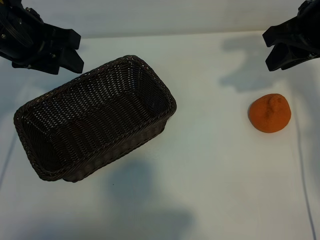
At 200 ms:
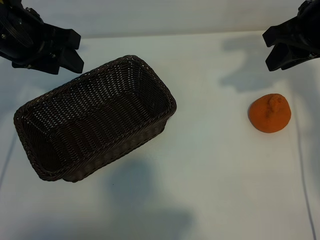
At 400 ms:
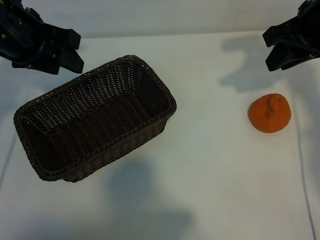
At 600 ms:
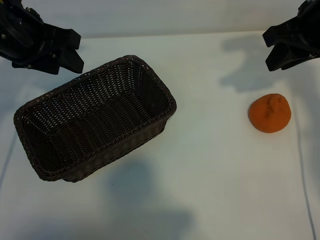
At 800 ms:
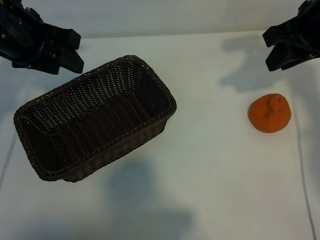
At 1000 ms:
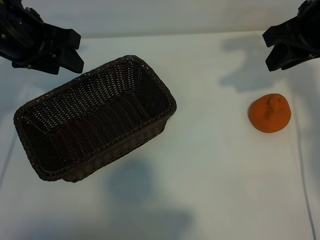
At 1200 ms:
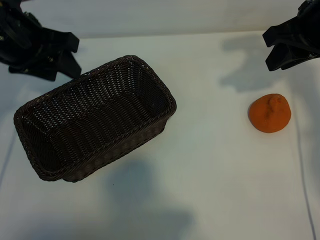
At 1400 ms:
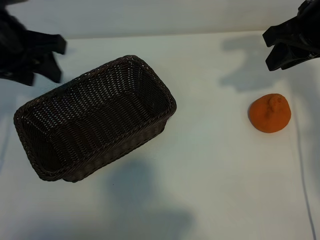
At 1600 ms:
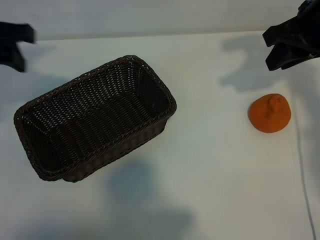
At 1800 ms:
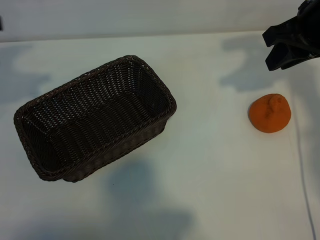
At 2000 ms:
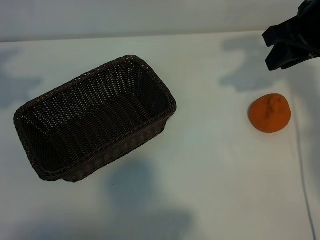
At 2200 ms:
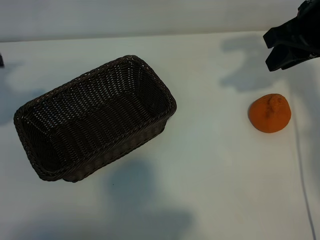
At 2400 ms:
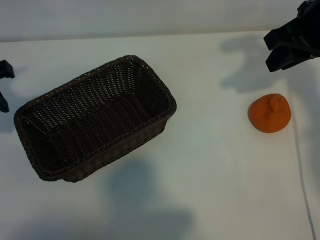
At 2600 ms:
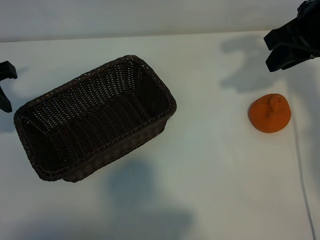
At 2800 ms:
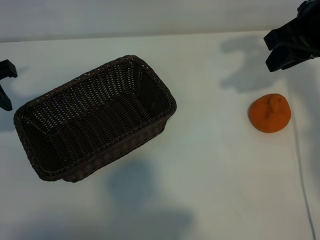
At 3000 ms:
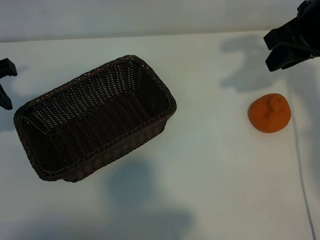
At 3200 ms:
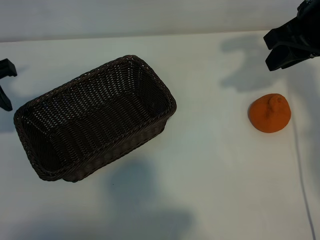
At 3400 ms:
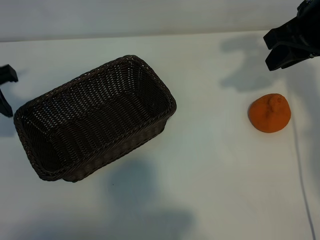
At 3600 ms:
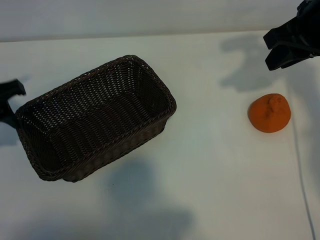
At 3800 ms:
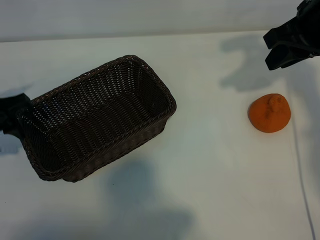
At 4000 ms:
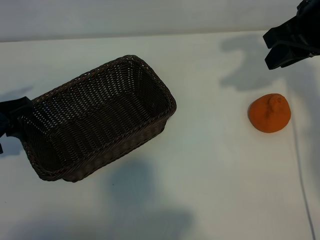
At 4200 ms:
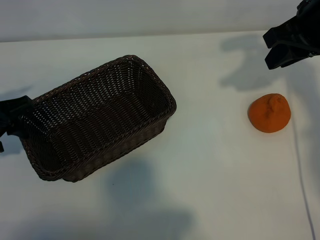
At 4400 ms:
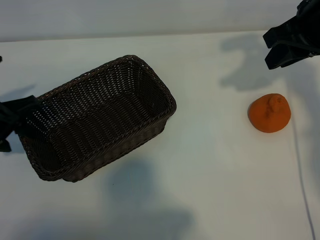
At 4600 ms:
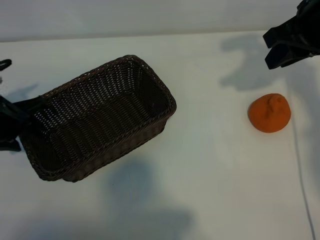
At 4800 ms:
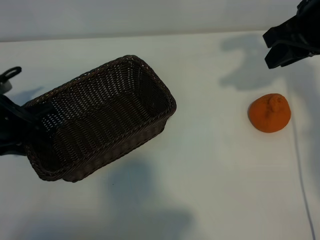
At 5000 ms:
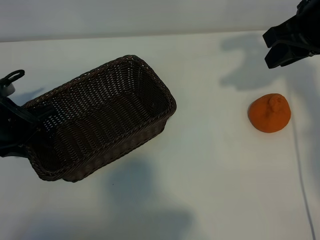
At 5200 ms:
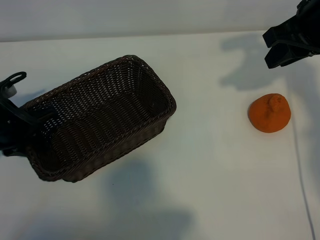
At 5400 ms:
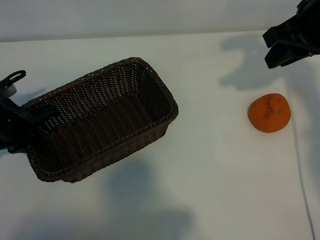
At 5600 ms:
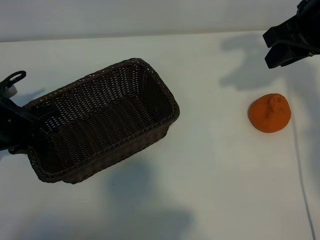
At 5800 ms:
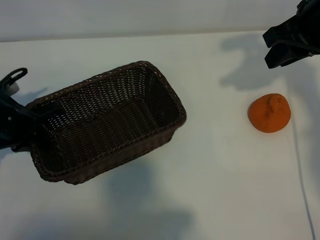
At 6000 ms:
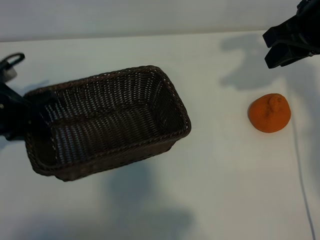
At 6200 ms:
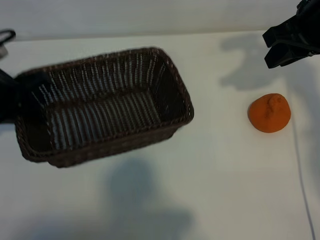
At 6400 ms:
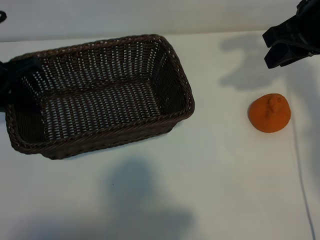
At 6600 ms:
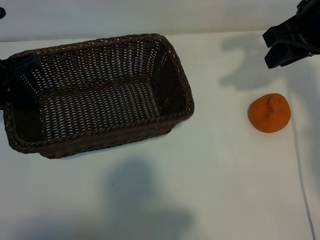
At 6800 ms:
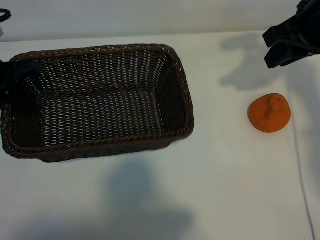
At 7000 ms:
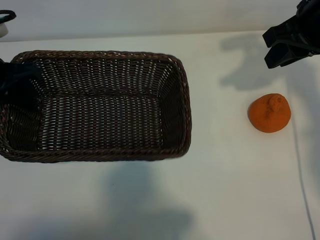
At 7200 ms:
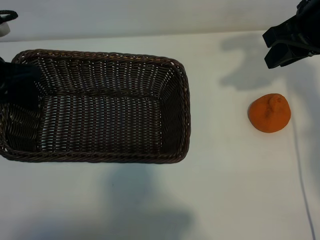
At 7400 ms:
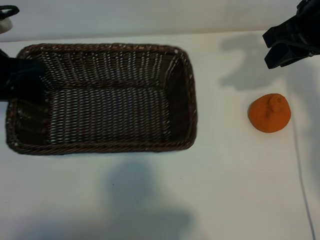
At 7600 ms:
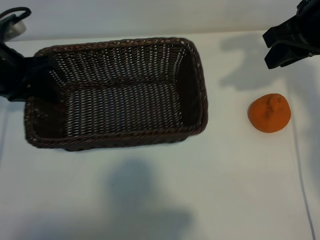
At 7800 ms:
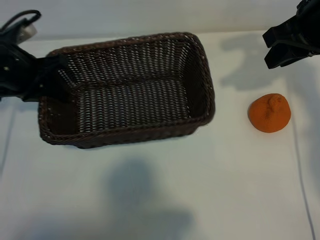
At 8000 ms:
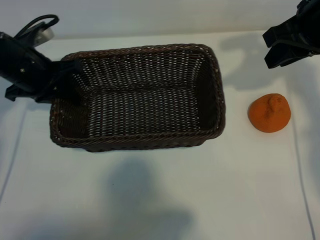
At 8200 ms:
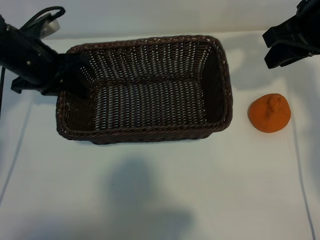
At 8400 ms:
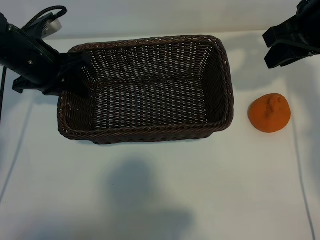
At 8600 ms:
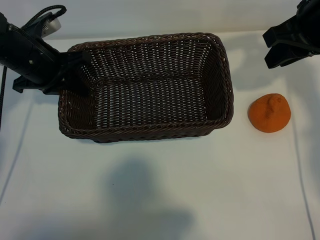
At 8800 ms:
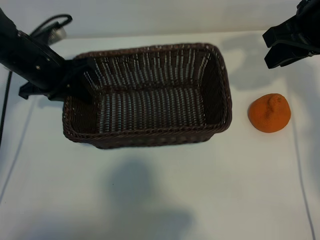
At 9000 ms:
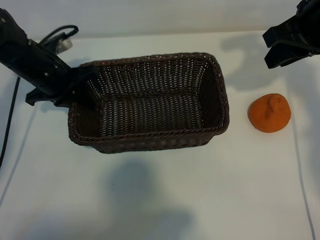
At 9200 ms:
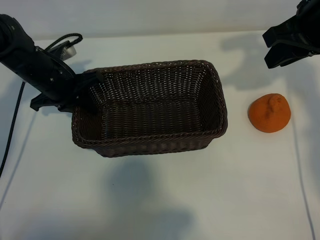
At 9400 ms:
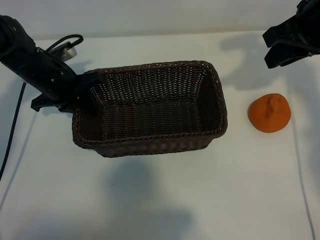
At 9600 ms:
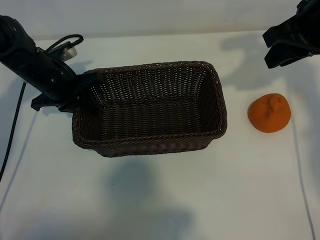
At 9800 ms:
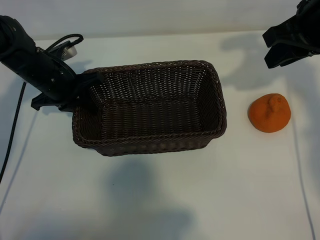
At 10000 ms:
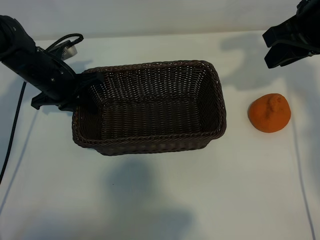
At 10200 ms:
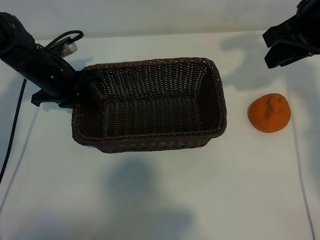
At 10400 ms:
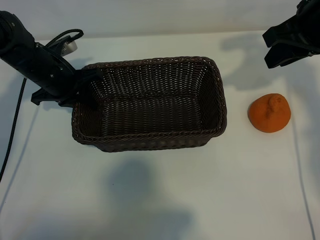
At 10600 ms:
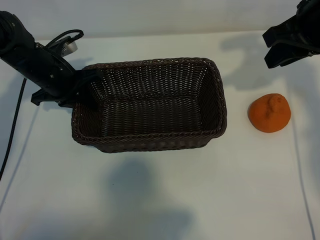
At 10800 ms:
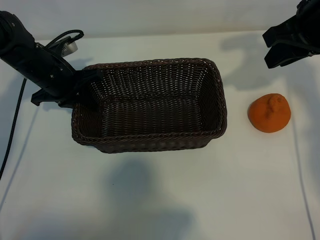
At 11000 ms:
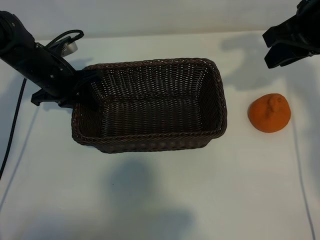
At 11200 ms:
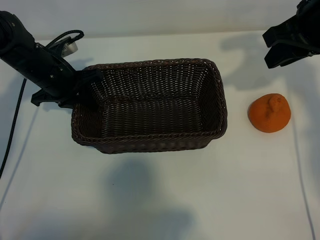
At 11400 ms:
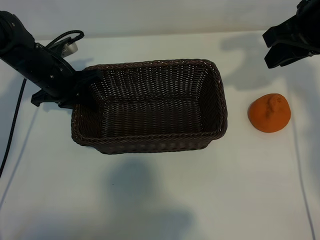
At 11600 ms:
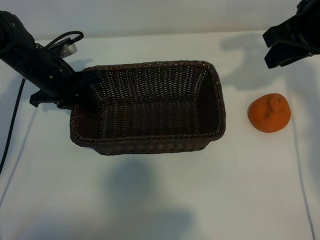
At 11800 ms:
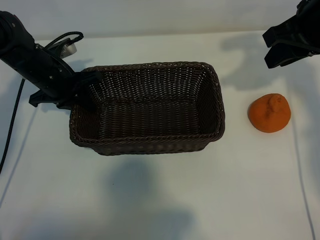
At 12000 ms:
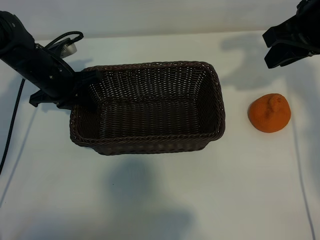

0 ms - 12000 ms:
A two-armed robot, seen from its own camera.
Task of the whole recording: pick up the orange and put it into the basket.
Step, 1200 ms - 5200 ms: Grasp the basket with left gripper.

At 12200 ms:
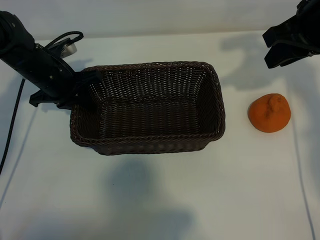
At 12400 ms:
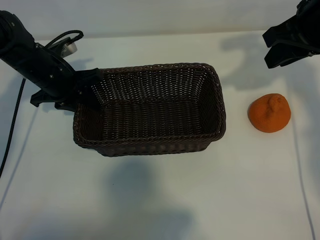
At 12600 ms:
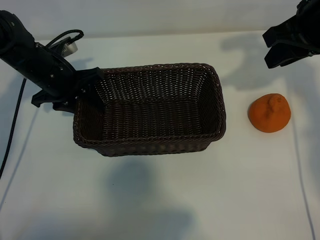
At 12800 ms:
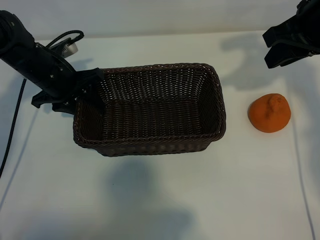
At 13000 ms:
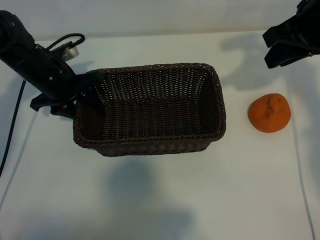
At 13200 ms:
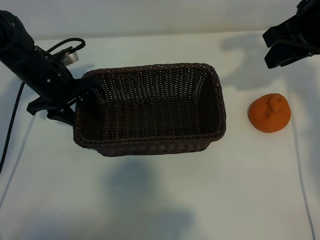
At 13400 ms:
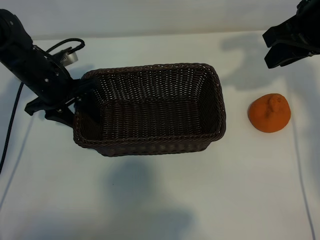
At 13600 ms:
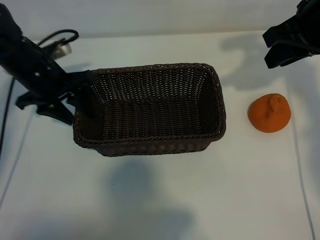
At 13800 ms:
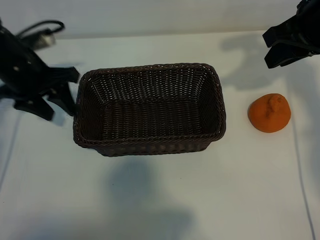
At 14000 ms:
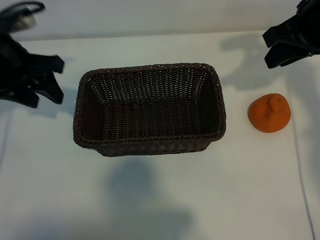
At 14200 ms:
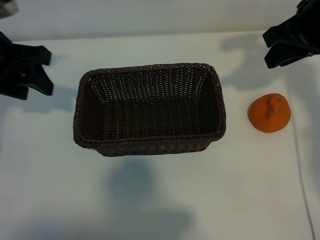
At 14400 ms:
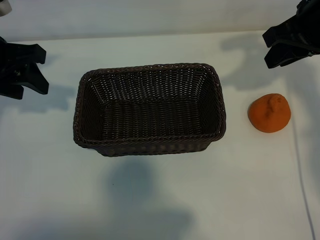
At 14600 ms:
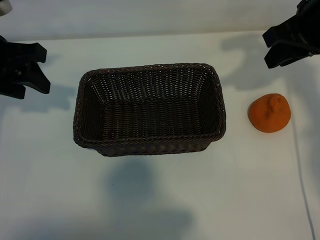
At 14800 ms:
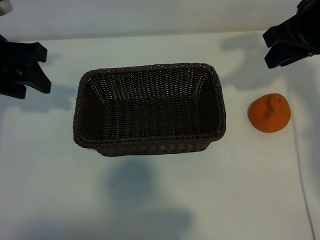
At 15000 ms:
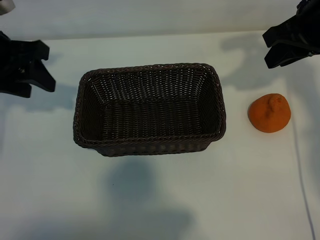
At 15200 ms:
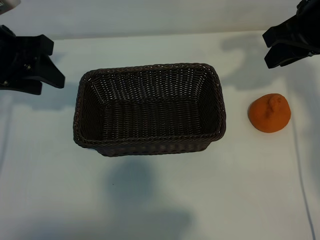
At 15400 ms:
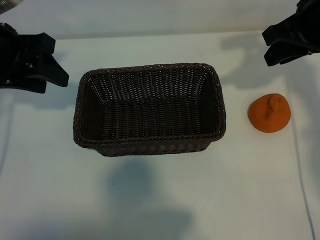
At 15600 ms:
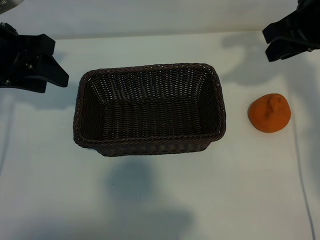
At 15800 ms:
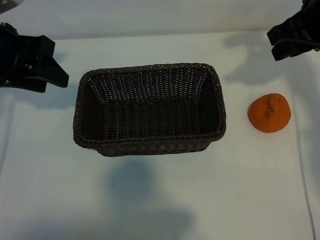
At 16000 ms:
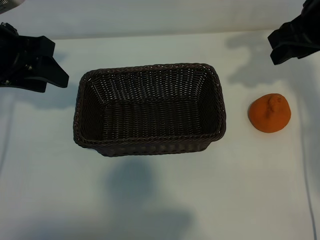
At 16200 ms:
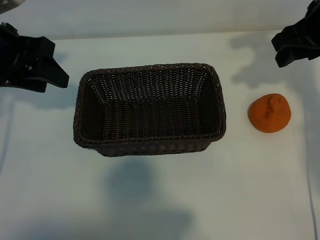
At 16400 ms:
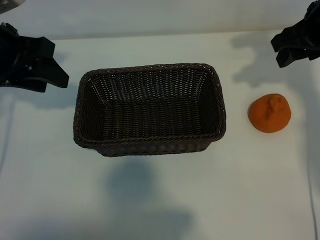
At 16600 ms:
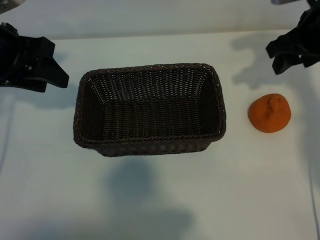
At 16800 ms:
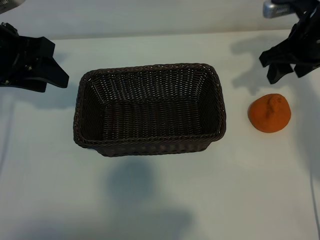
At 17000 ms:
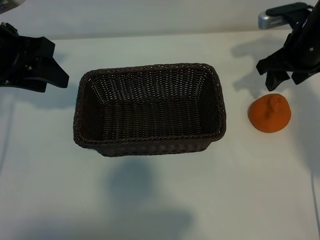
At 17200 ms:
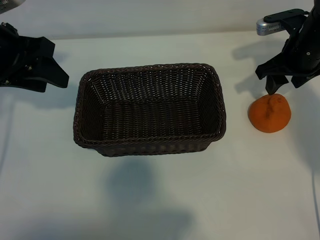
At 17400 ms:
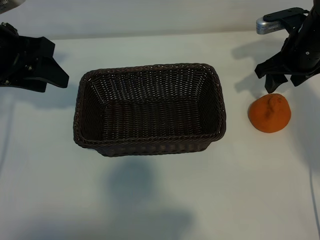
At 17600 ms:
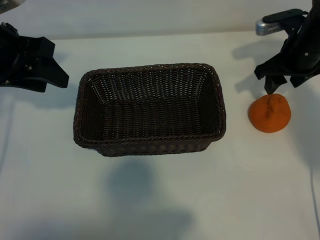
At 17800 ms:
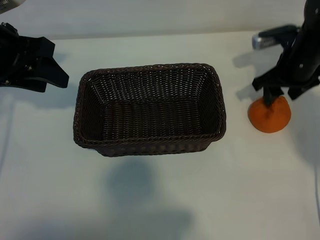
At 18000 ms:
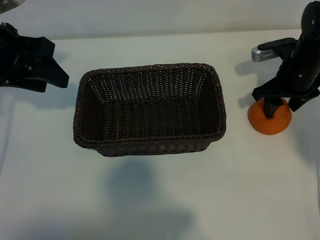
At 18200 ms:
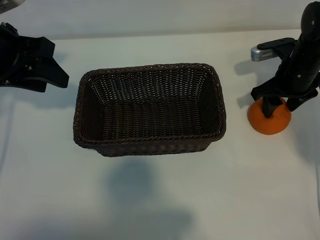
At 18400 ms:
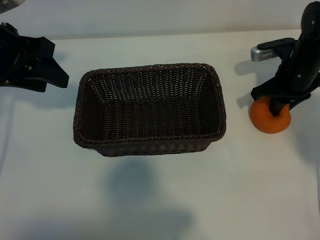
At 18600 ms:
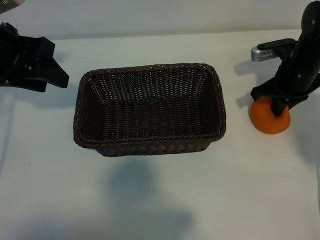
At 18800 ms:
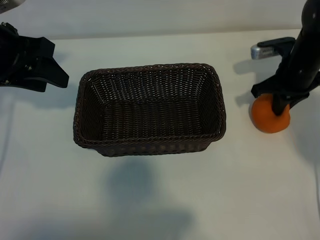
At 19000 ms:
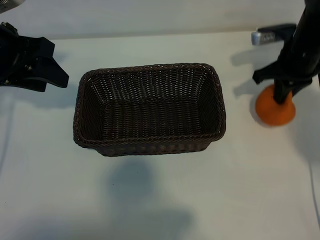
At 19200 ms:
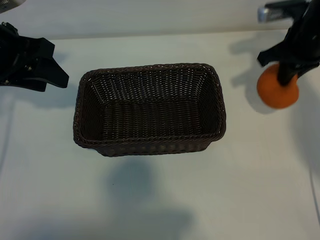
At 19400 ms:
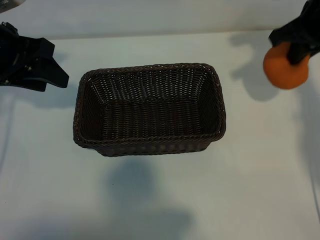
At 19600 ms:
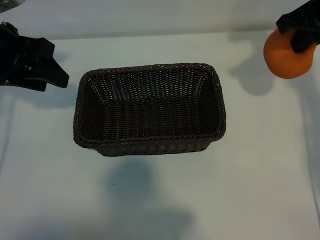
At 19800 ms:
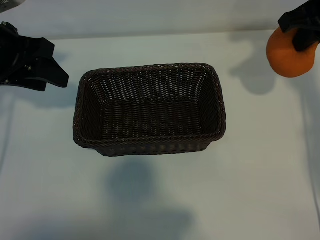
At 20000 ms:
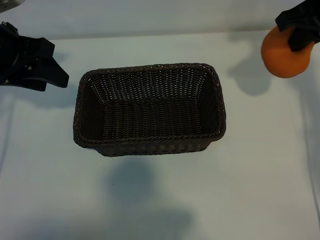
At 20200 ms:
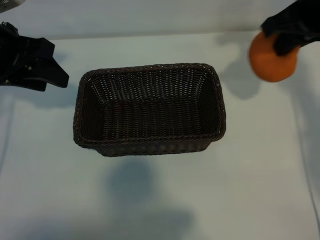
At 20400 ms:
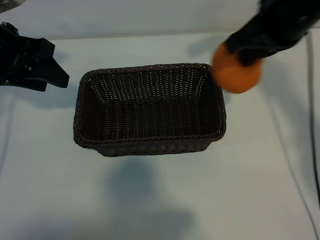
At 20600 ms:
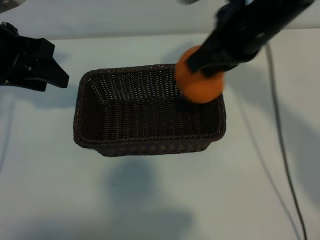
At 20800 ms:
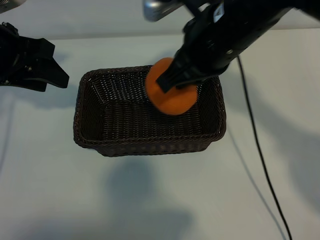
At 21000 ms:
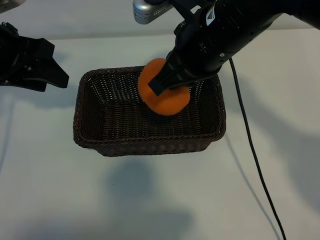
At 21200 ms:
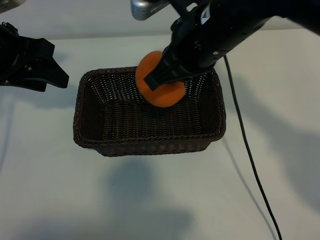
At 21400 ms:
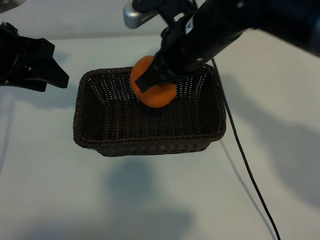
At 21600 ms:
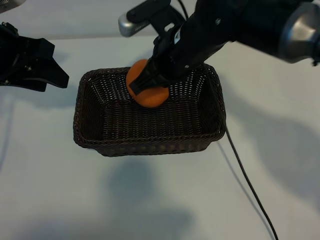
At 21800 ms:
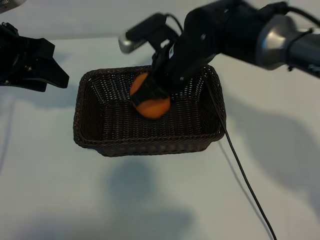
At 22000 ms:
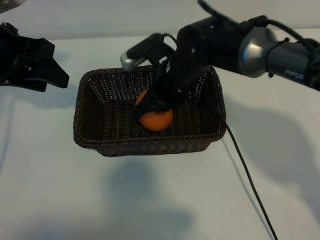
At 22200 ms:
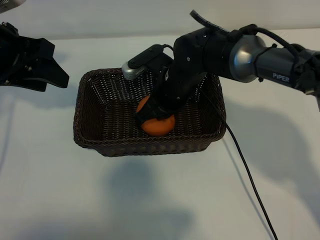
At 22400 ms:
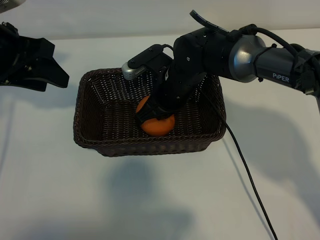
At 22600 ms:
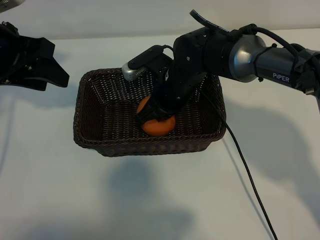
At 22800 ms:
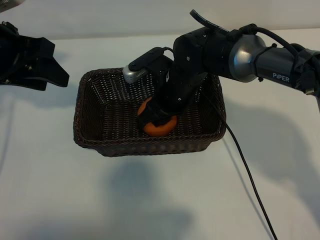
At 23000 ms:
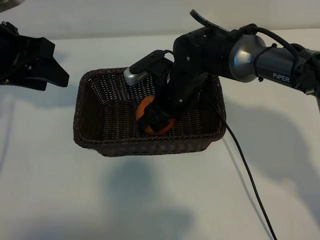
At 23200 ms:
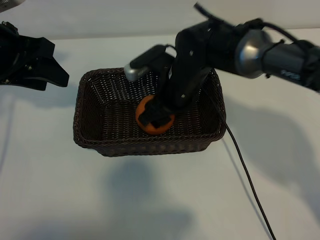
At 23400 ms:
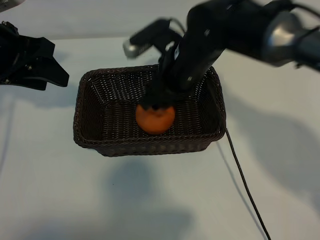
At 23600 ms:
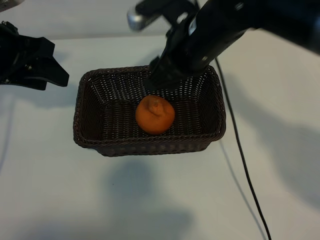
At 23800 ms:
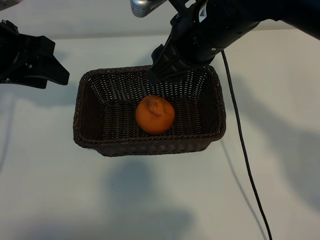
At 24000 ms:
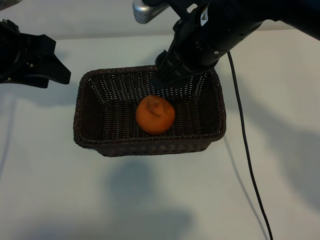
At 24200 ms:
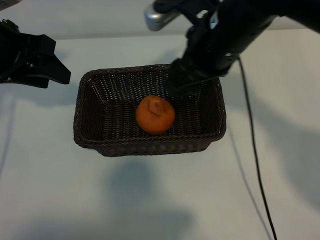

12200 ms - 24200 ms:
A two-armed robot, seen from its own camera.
Task of the whole recording: pick up the orange and put it into the basket.
Step, 12600 ms - 18600 ms: Grasp the orange with right gripper.
Step, 18800 ms - 22600 ms: Place the orange in the basket with right gripper.
